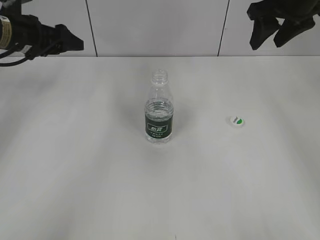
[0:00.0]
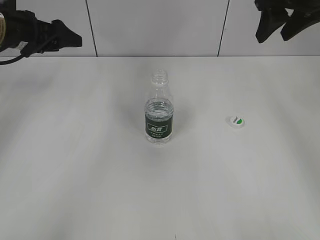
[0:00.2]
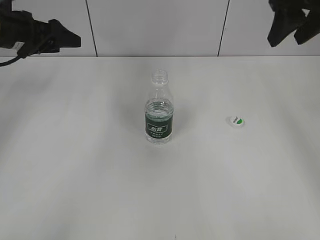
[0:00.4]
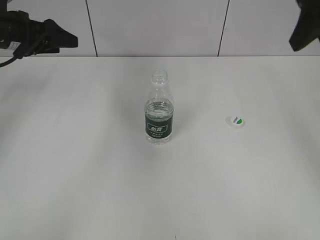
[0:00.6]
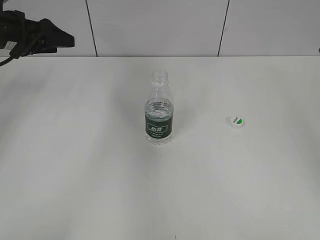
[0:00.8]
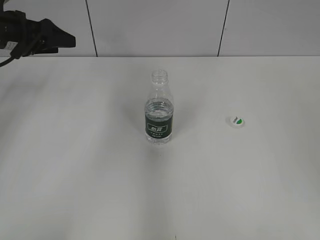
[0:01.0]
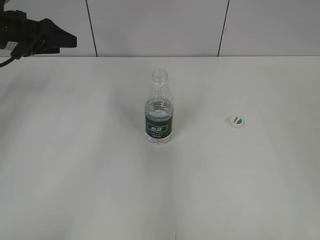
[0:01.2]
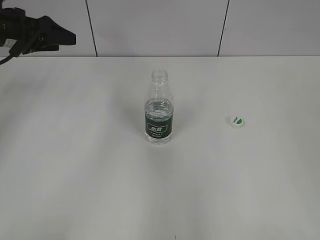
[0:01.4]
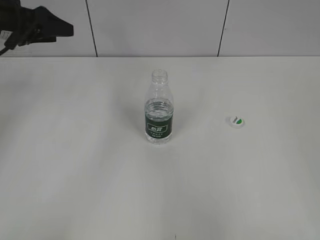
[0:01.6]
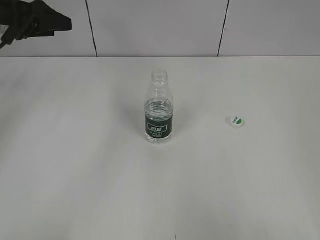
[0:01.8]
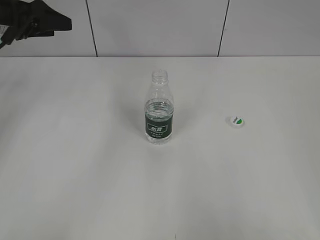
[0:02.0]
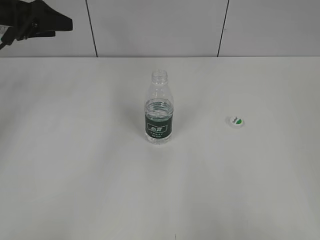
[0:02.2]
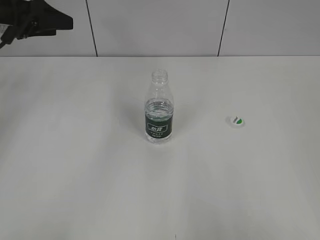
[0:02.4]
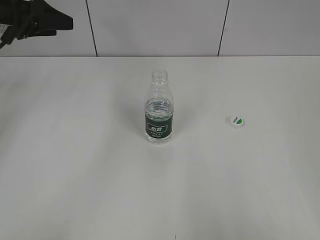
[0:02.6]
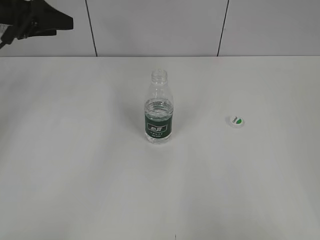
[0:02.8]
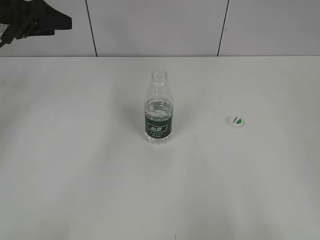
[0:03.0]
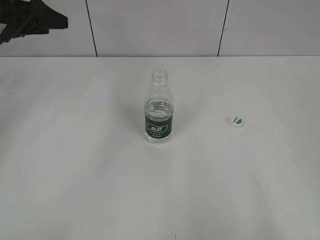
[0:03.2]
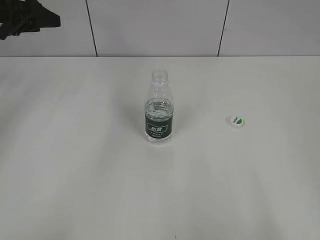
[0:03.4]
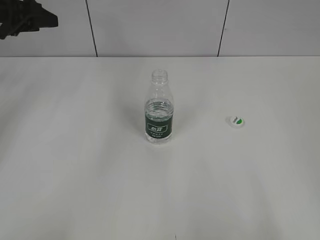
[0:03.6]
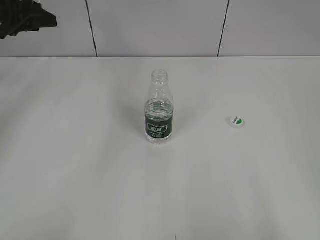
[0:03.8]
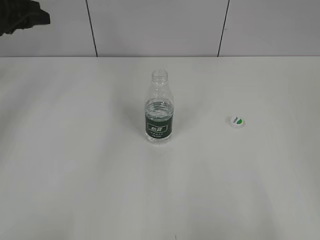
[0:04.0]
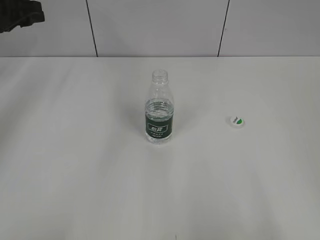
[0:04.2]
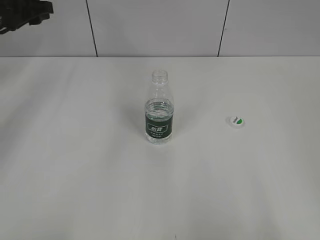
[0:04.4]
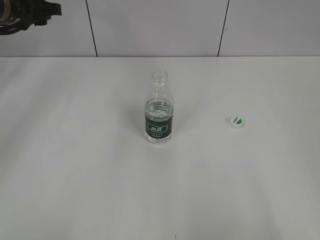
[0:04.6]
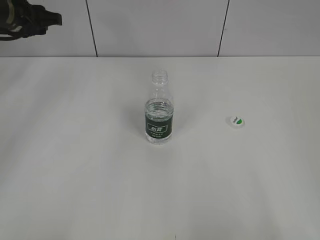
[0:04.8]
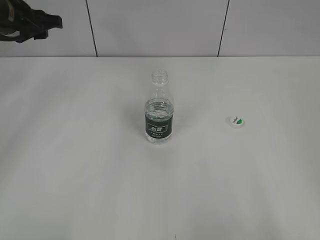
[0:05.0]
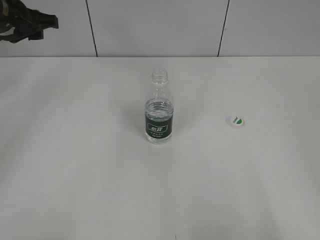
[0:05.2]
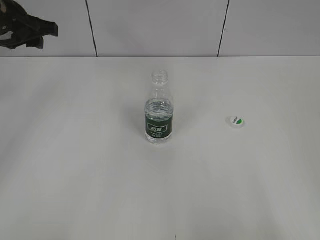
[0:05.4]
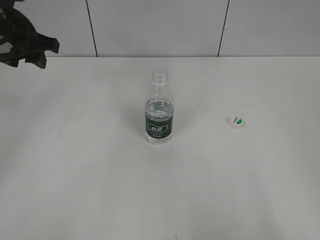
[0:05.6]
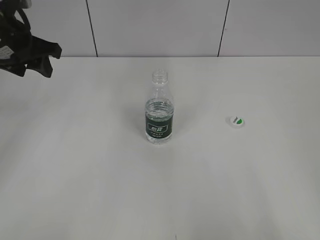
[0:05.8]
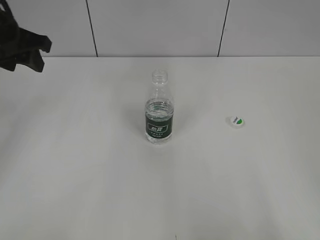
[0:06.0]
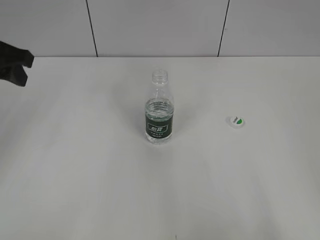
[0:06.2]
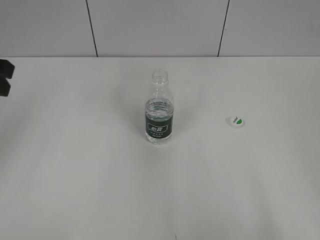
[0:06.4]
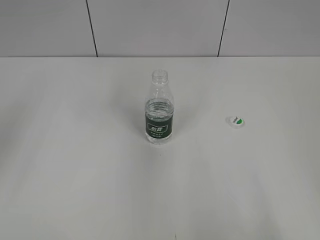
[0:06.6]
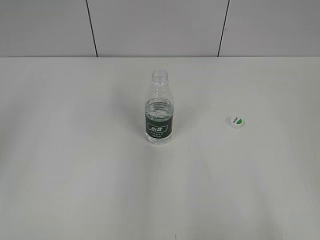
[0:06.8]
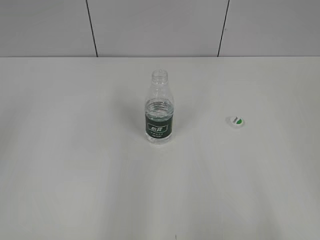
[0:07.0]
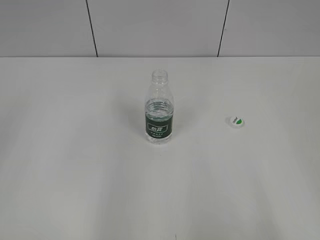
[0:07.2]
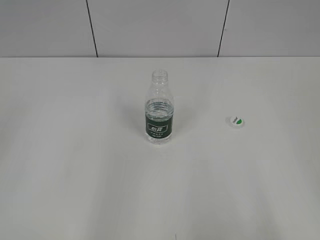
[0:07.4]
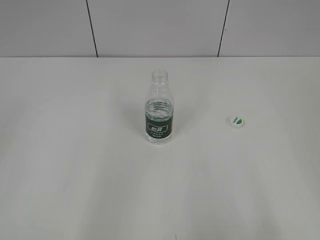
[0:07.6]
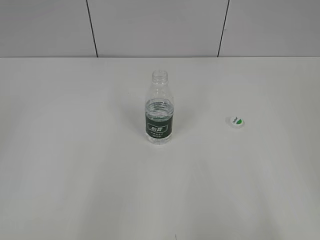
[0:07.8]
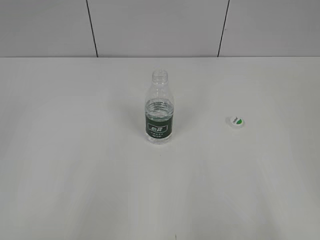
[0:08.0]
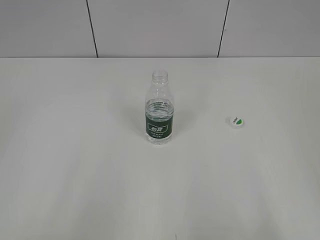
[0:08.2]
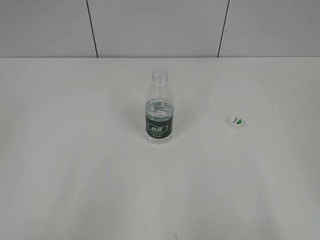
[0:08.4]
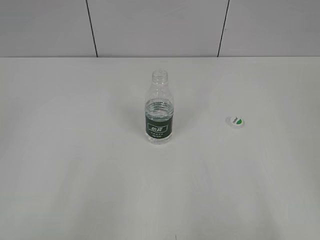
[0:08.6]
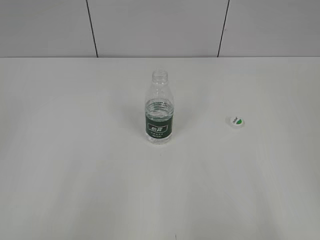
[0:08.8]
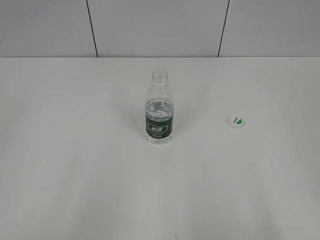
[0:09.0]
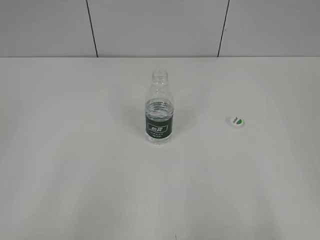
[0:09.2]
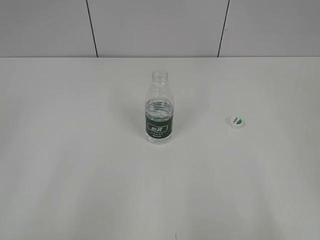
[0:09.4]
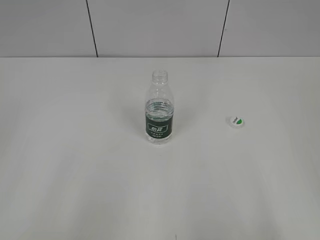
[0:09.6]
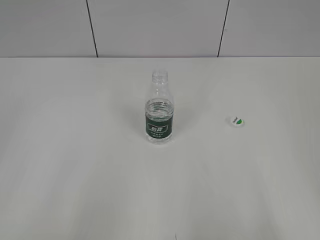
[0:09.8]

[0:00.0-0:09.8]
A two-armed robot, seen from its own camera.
0:00.0 to 0:01.4: The right gripper shifts about 35 cm backward.
0:02.8 to 0:04.2: The left gripper closes up.
0:04.2 to 0:05.6: The left gripper changes place by approximately 5 cm.
0:05.6 to 0:07.0: The left gripper moves backward, roughly 25 cm.
